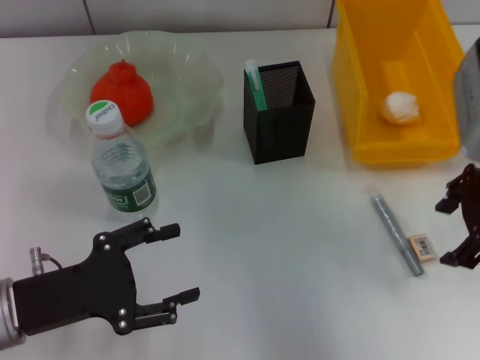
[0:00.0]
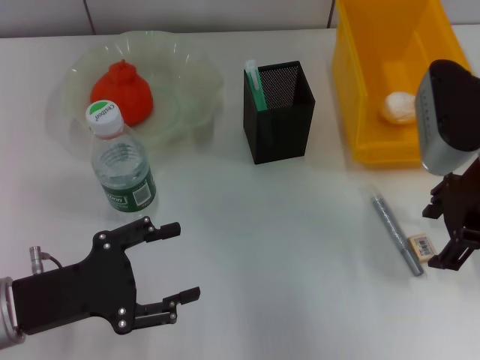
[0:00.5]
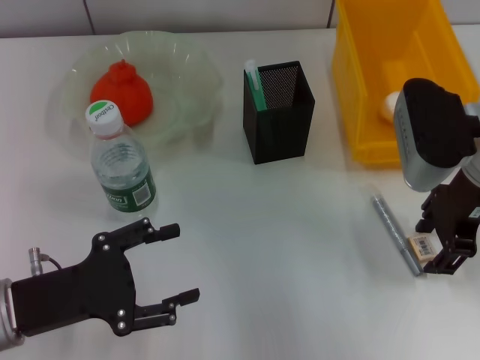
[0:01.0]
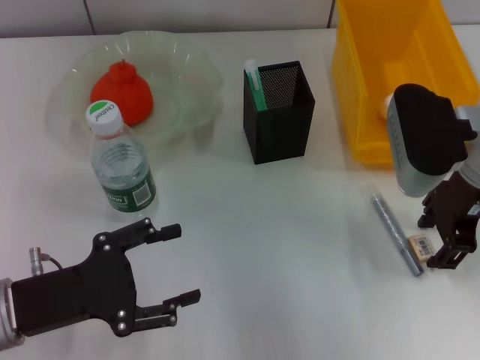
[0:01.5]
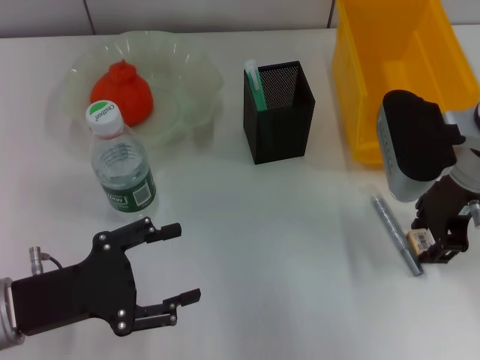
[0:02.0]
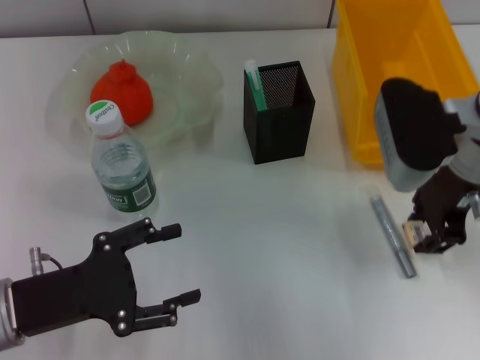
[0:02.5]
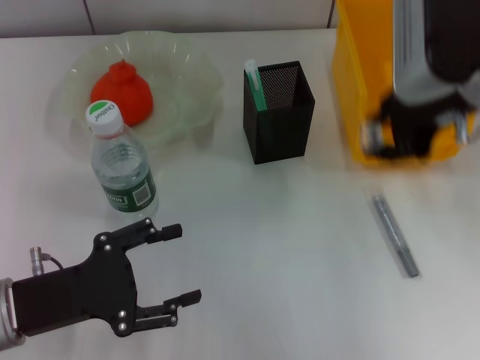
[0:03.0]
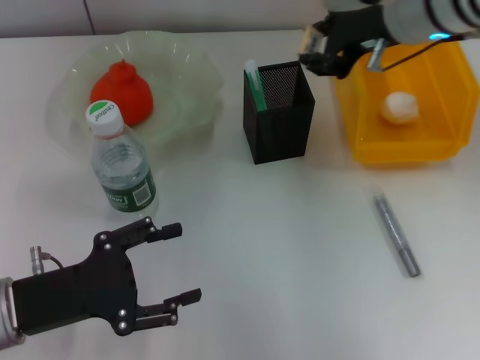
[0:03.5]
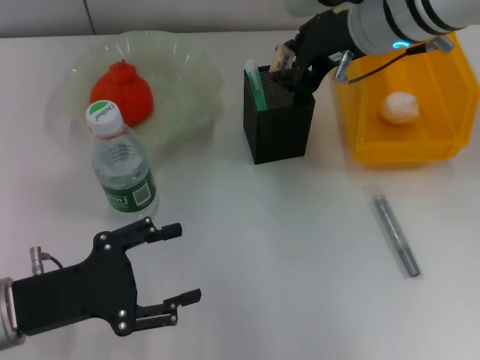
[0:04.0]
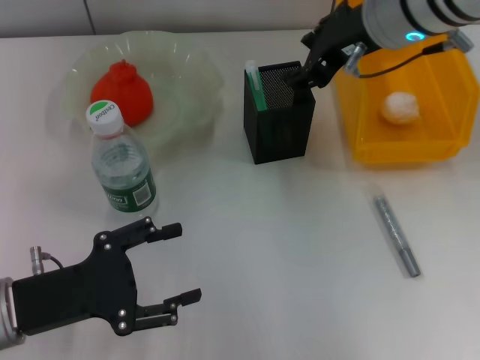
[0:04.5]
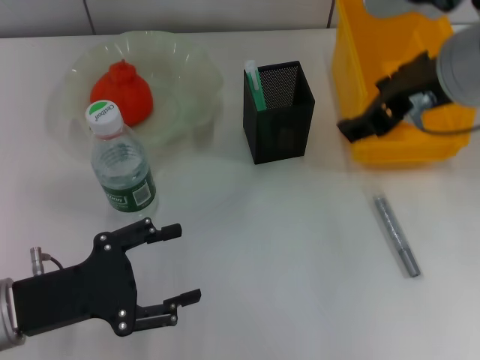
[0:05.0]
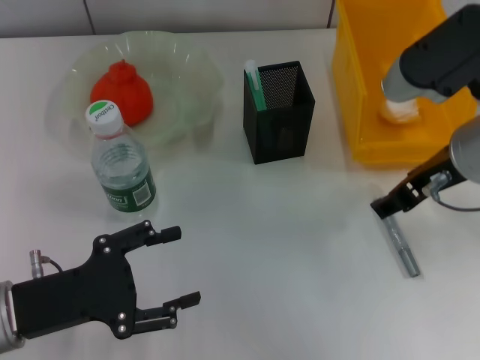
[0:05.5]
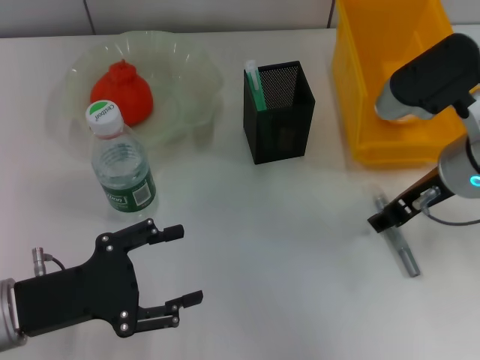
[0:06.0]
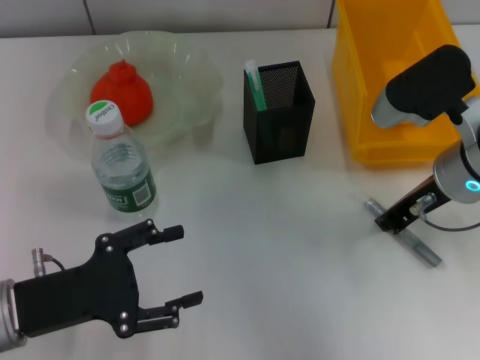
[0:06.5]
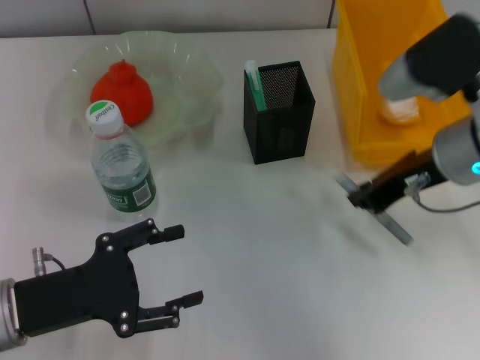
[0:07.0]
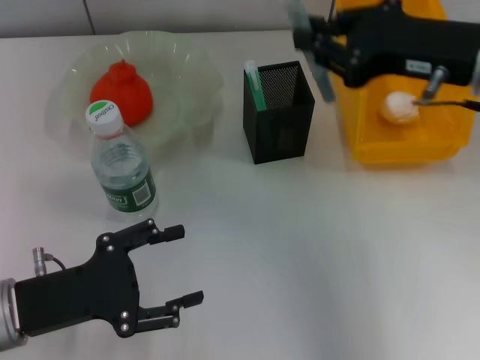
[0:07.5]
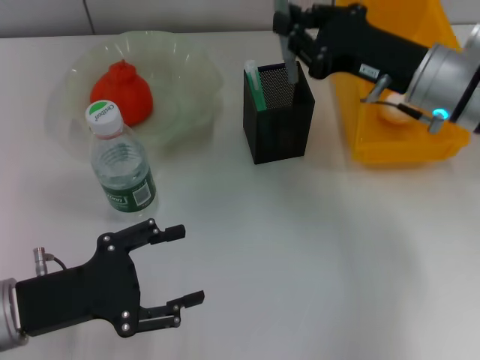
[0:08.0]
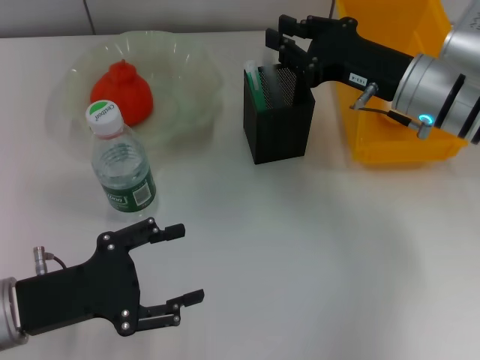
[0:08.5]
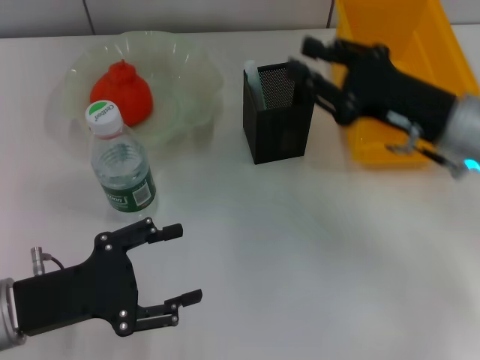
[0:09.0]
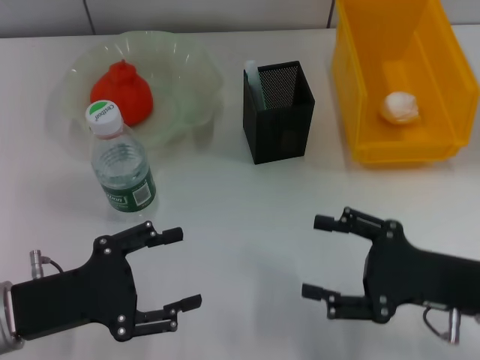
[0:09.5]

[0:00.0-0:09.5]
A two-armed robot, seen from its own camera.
Step, 0:00.0 to 0:02.0: Grab the eraser with the right hand.
Step, 0:02.5 to 0:04.0: Put the eraser into the pen holder with the right hand.
Step, 0:04.5 to 0:06.5: Grab the gray glue with the right hand.
Step, 0:07.0 to 0:08.5: Place the gray glue into the pen holder with the right hand.
0:00.0 to 0:02.0: The right gripper ends up roughly 5 cm from where it was.
0:02.0 to 0:04.0: The right gripper shifts some 10 cm upward and to the left.
0:04.0 to 0:05.5: The right gripper travels backward and to the right by approximately 10 cm, and opens.
0:05.5 to 0:07.5: The right gripper closes up.
0:07.5 to 0:09.5: The right gripper goes about 20 cm downward and backward, and opens its fingers.
